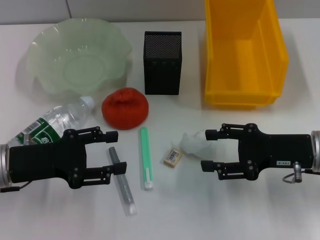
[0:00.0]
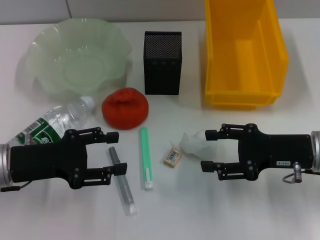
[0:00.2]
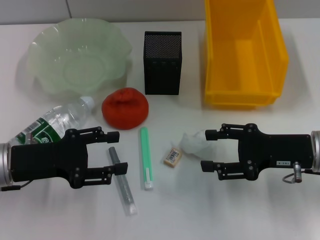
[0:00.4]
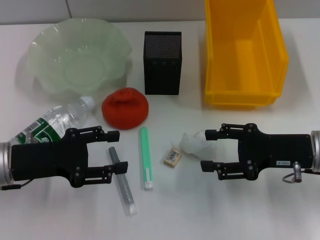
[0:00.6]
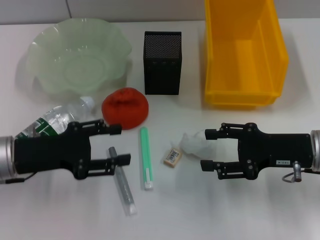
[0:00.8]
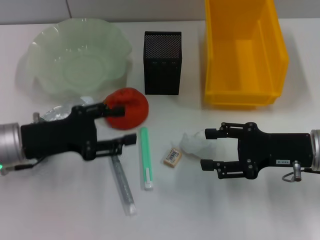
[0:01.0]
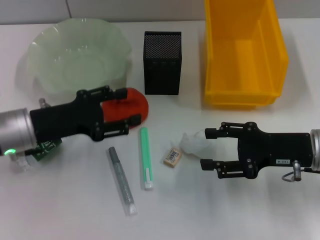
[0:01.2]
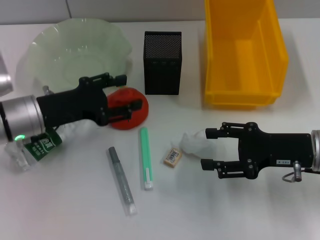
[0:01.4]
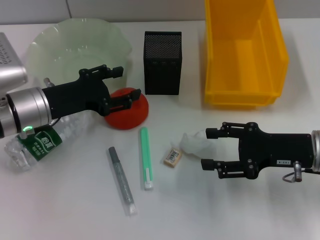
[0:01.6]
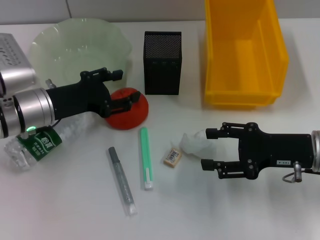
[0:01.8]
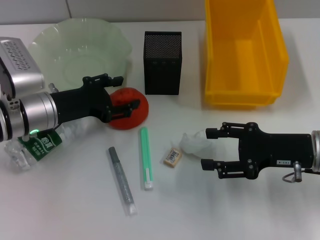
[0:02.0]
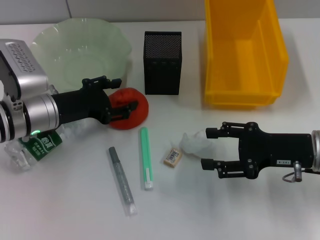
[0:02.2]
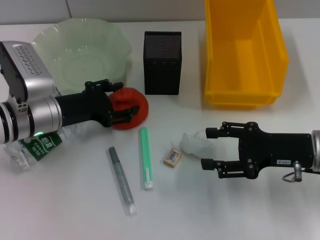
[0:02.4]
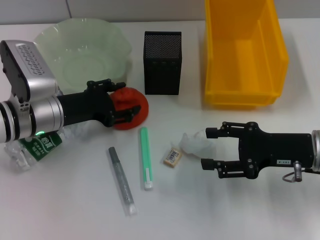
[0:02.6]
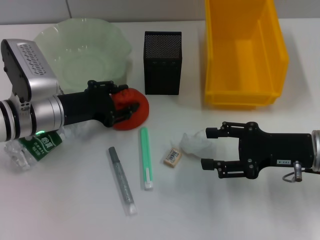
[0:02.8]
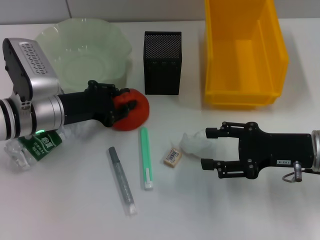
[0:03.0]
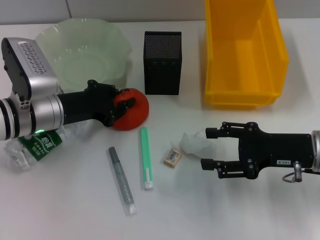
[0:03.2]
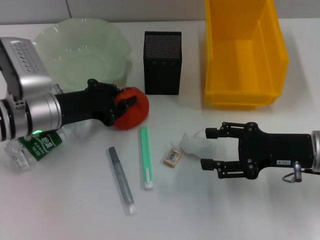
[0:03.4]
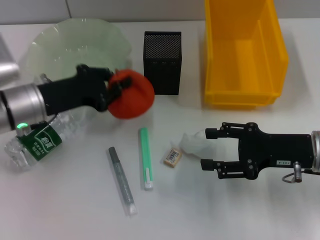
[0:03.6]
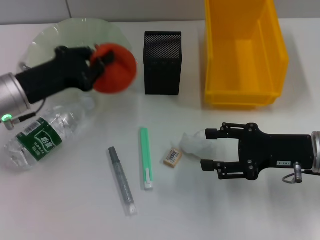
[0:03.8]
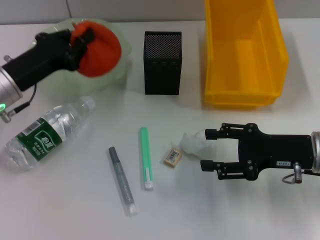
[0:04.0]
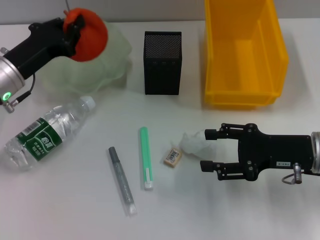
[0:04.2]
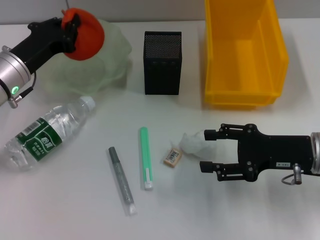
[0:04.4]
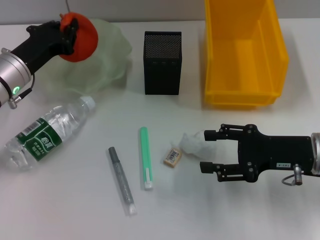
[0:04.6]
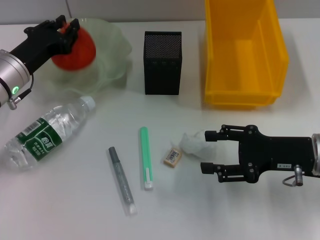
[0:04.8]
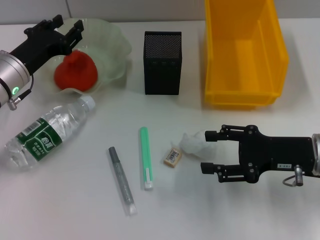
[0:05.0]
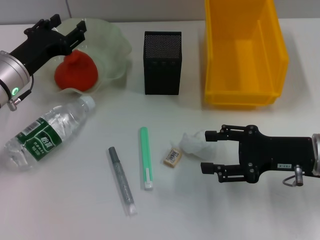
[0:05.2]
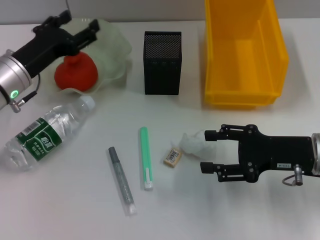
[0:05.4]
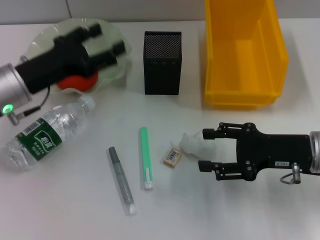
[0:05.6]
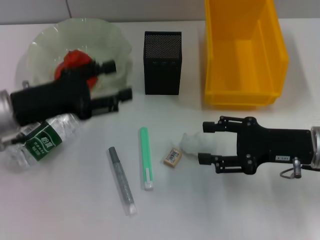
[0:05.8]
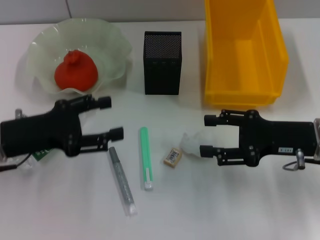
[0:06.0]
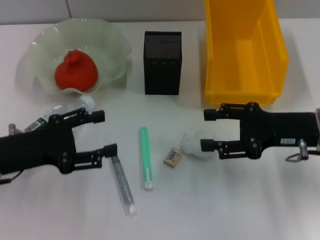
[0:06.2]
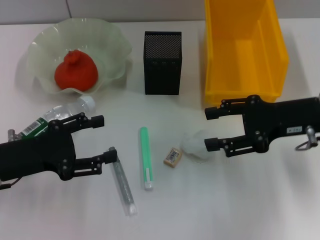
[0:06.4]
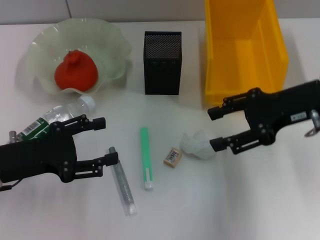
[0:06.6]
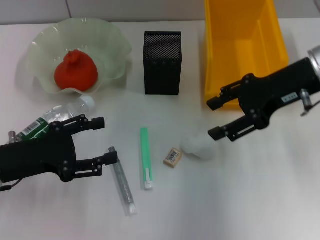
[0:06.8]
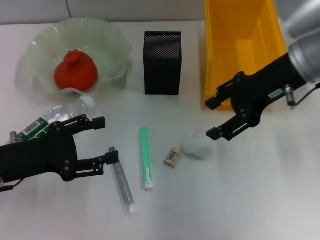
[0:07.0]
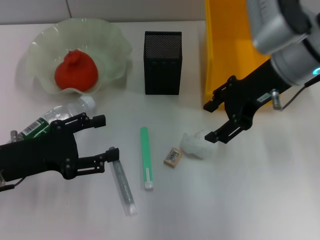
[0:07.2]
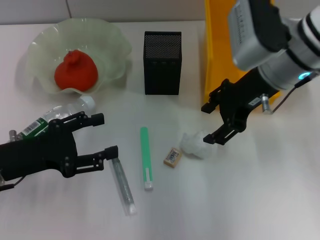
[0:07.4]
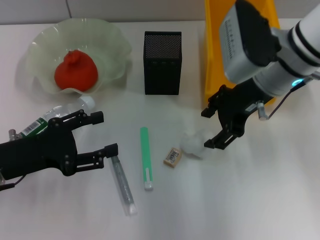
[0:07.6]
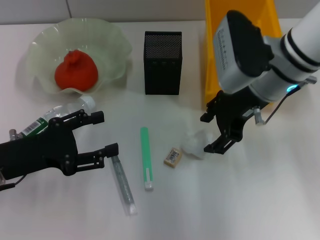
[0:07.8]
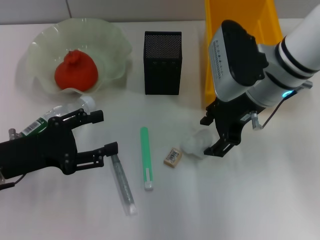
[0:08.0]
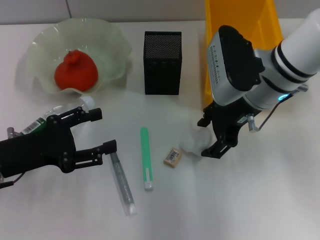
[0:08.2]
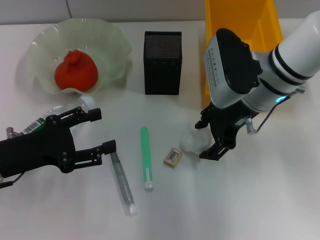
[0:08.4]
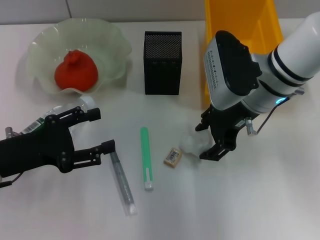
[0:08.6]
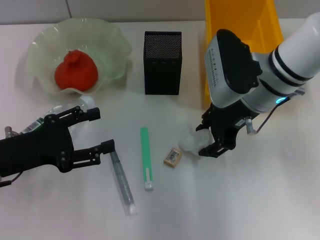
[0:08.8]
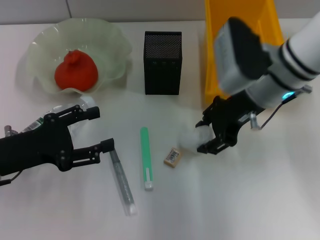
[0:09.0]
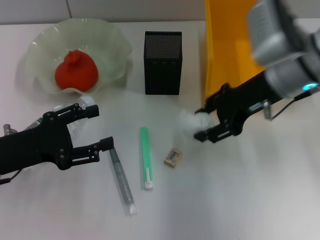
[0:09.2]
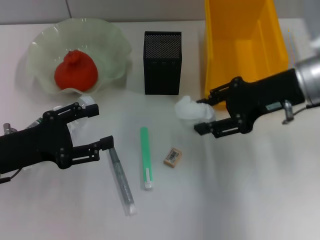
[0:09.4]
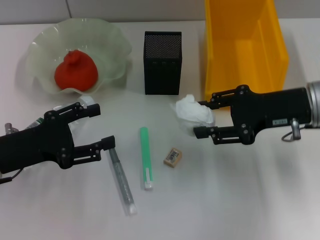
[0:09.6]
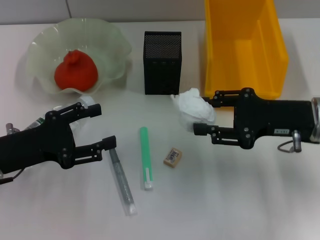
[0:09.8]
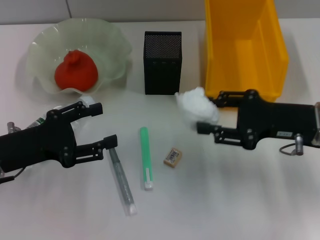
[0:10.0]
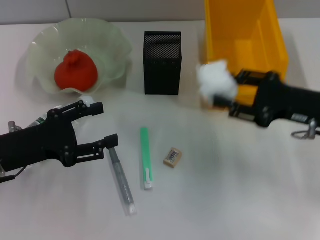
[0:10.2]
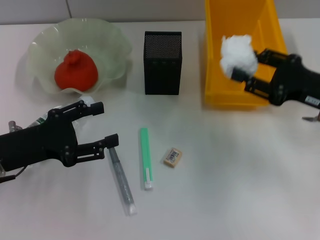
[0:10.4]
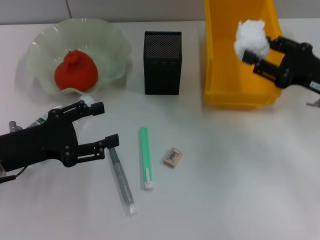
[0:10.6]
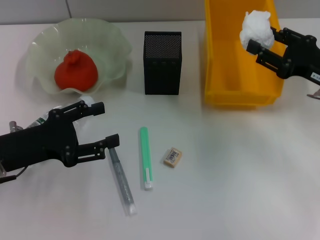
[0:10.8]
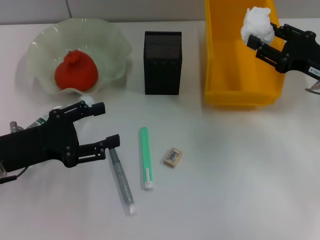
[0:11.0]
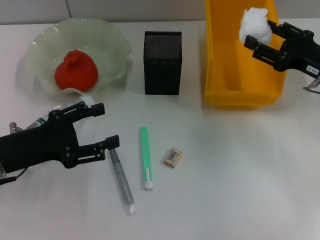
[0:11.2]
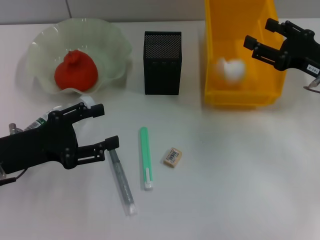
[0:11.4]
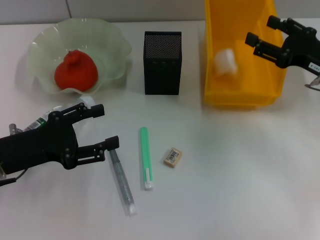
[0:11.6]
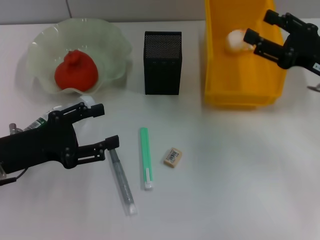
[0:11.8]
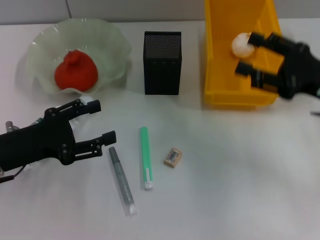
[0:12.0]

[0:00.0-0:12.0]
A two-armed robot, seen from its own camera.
Step, 0:00.0 to 0:03.2: Grab the orange with the left hand.
Step, 0:03.4 to 0:05.0: Place the orange into the fruit bowl with the left hand.
Step, 0:05.2 to 0:08.6: Grab the paper ball with the right hand.
Step, 0:09.0 to 0:11.8: Place the paper ball into the trash can with the right hand.
0:00.0 to 0:01.6: The left gripper moves forward, about 10 cm.
0:01.6 to 0:03.0: There are only small adjustments of the grippers.
0:03.0 to 0:04.4: The left gripper closes up.
0:04.4 to 0:06.0: The left gripper is displaced backward by about 10 cm, and opens its fingers.
0:06.0 to 0:07.6: The right gripper shifts roughly 15 cm to the left, upward and forward.
0:07.6 to 0:09.0: There are only small adjustments of the grippers.
0:09.0 to 0:10.4: The right gripper heads to the right and backward, covering about 15 cm.
0:10.4 to 0:12.0: The grippers make only small movements.

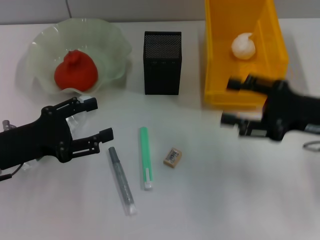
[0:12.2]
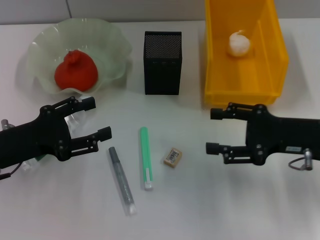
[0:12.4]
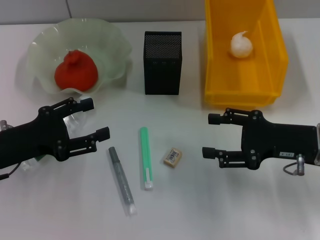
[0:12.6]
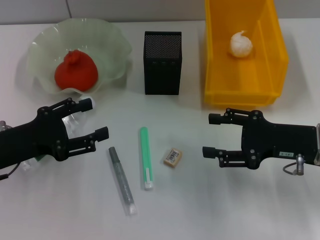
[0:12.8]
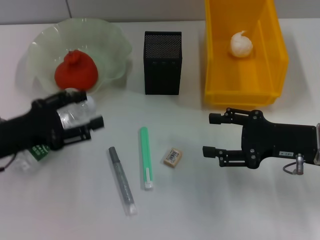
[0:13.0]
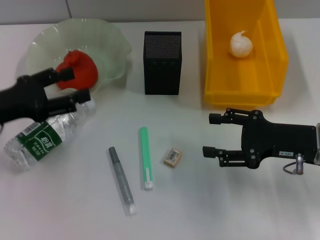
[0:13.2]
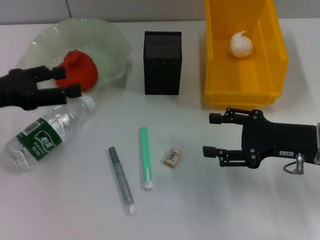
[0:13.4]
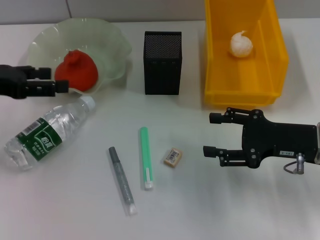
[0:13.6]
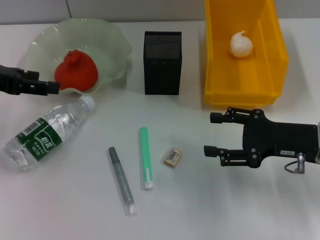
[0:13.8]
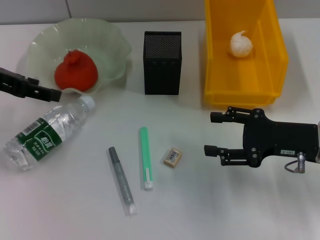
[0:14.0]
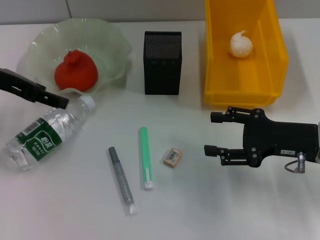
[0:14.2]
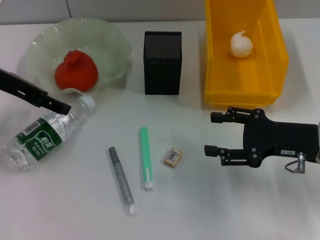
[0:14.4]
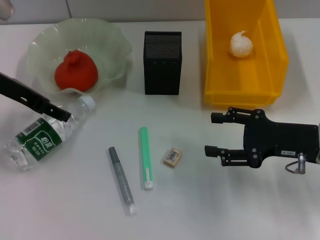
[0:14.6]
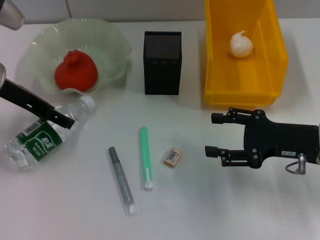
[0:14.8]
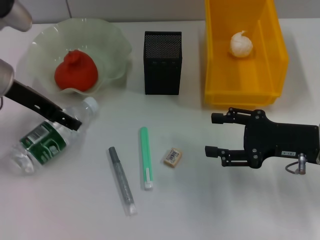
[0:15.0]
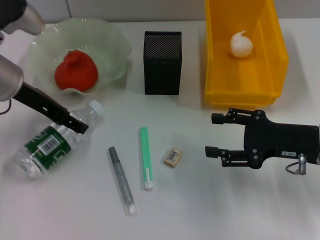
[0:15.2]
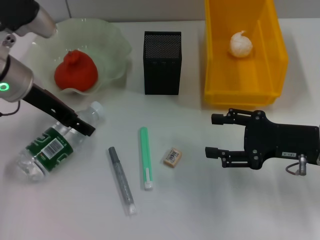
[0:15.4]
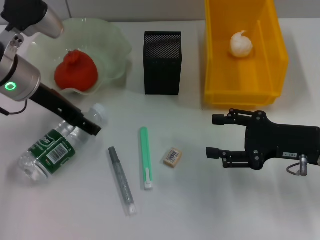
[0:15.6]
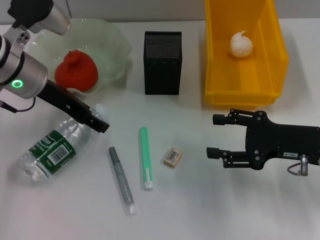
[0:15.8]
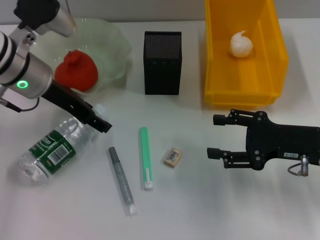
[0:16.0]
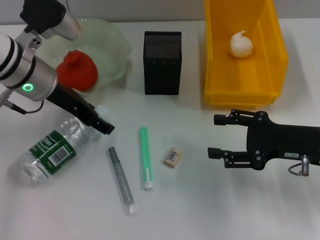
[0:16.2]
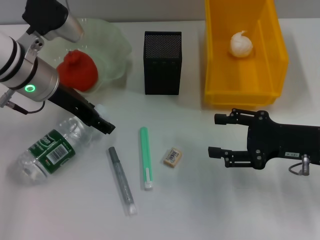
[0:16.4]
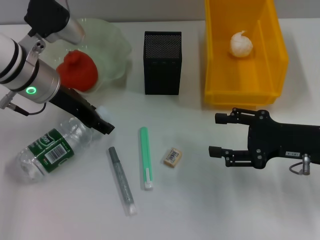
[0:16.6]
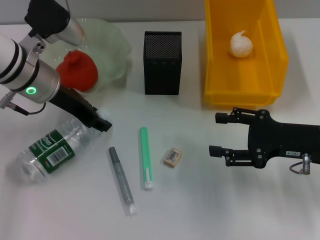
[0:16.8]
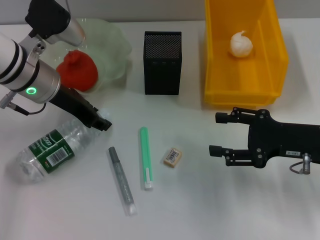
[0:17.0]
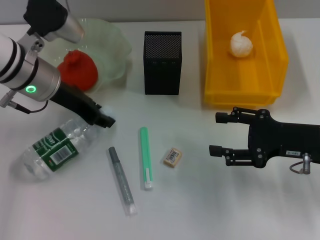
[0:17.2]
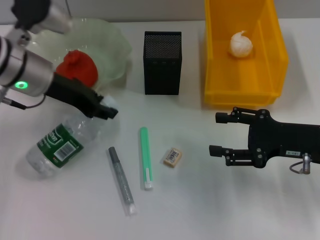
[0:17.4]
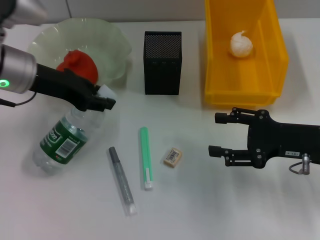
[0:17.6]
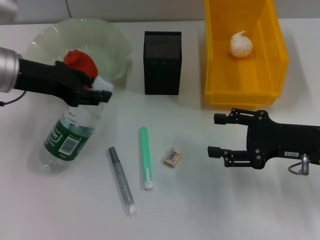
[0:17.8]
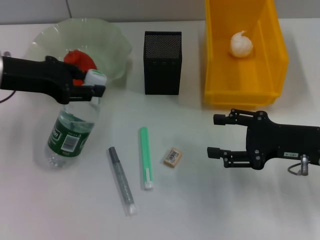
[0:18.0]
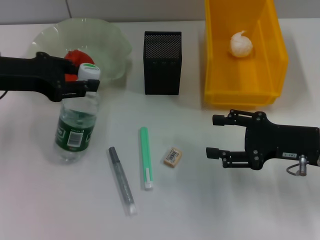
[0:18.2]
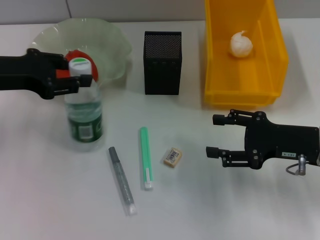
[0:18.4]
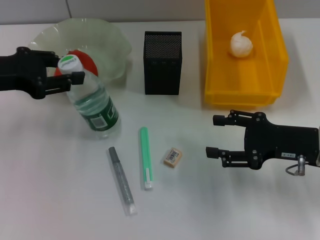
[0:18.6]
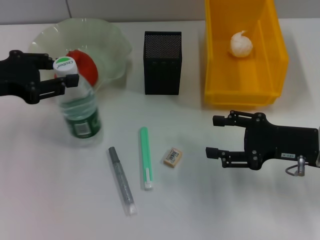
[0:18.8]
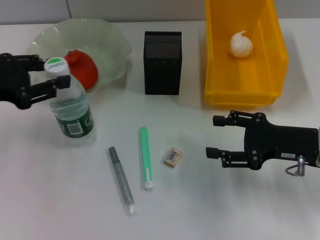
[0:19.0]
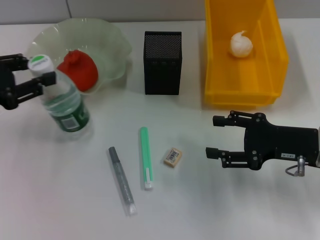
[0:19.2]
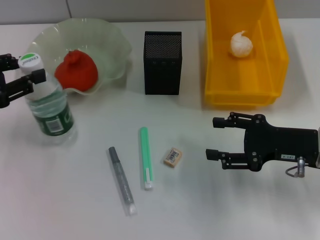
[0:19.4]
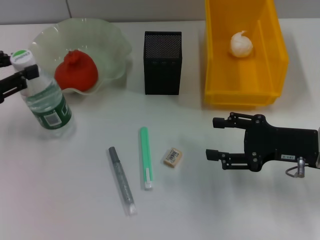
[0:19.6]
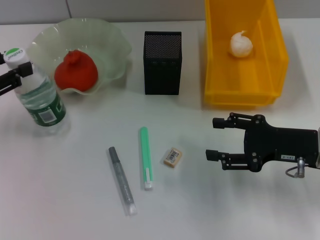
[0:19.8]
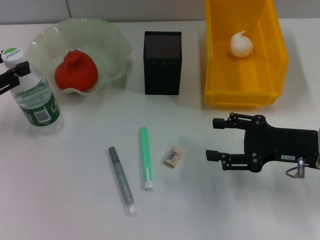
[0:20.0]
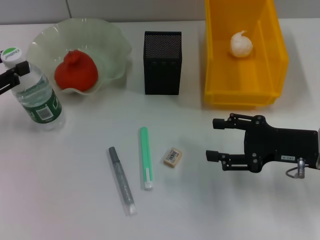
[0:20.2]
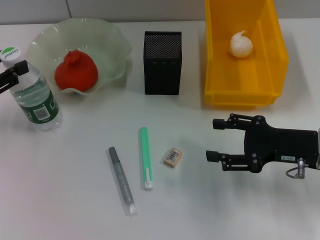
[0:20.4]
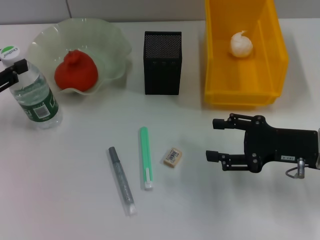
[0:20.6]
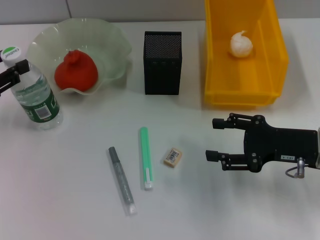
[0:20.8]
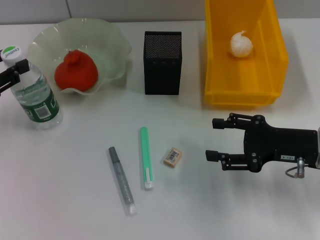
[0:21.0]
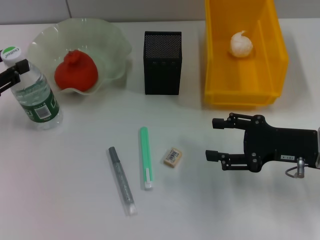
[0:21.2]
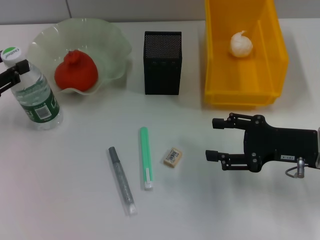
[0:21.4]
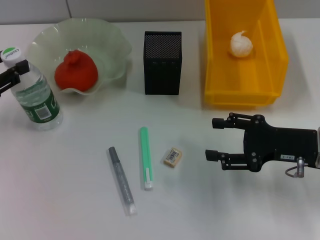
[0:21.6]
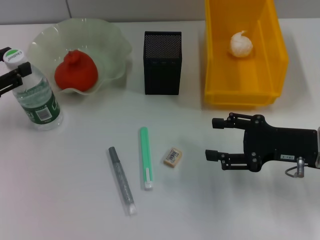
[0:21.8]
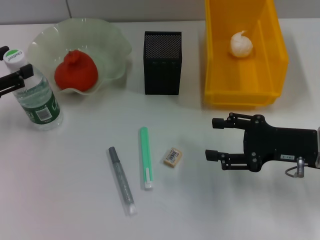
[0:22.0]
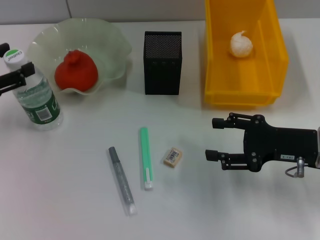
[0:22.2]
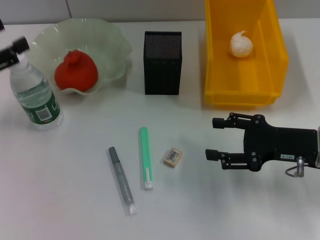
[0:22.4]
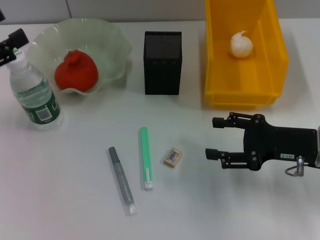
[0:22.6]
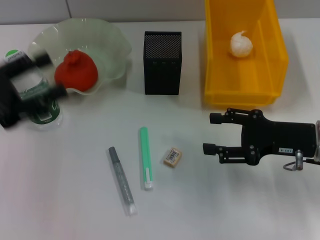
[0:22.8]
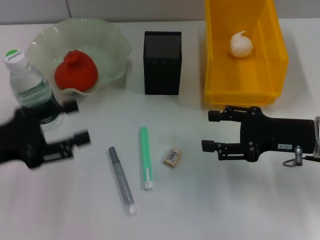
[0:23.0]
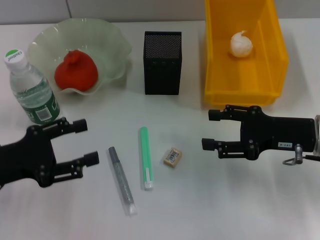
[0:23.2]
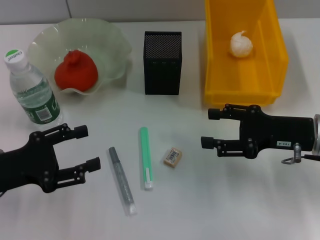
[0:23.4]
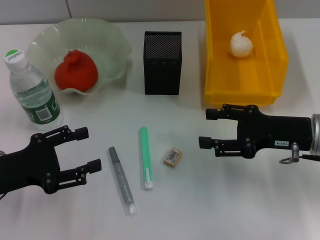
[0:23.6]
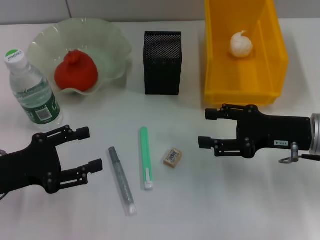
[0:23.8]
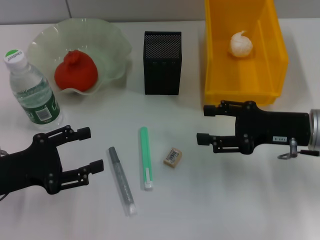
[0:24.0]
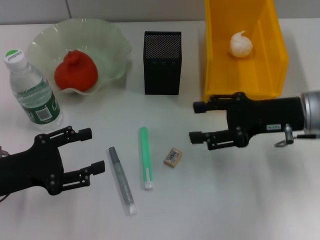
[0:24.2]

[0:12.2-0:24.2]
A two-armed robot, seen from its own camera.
Step, 0:12.2 to 0:17.0: Grab the water bottle with the left hand.
Step, 0:17.4 to 0:22.6: Place the water bottle on the table with the left hand.
0:12.2 to 0:13.8: The left gripper heads upward and forward, covering roughly 15 cm.
0:13.8 to 0:15.2: The left gripper moves to the right, approximately 10 cm.
0:15.2 to 0:16.6: The grippers move only a little.
0:16.6 to 0:18.2: The left gripper travels to the left by some 10 cm, and closes its fingers.
0:18.2 to 0:19.8: The left gripper travels to the left and backward by roughly 10 cm.
0:19.8 to 0:21.2: The grippers move only a little.
0:21.2 to 0:22.6: The left gripper opens its fingers.
0:22.6 to 0:24.2: The right gripper changes place by roughly 5 cm; the left gripper travels downward and to the right by approximately 10 cm.
